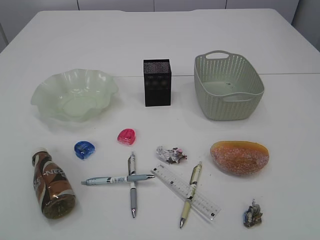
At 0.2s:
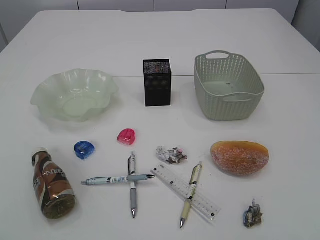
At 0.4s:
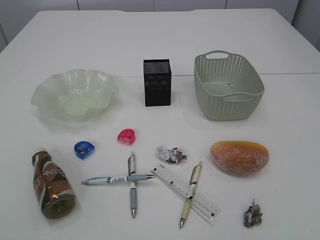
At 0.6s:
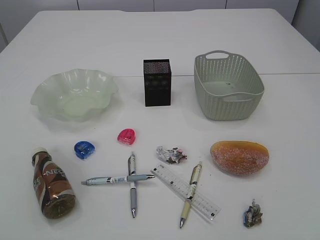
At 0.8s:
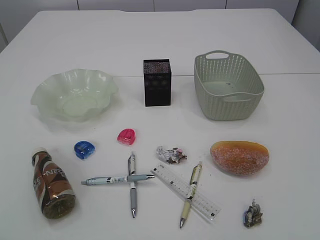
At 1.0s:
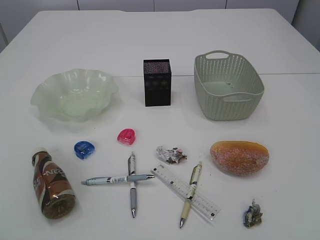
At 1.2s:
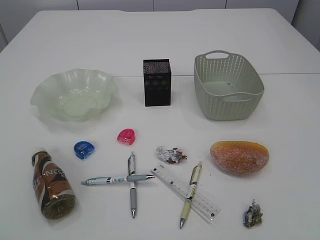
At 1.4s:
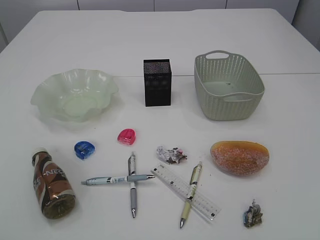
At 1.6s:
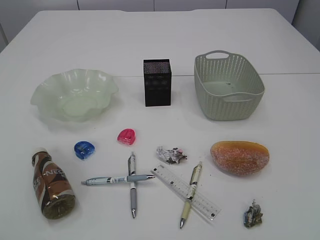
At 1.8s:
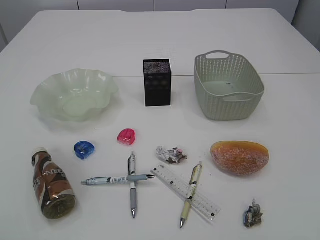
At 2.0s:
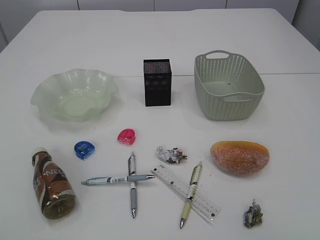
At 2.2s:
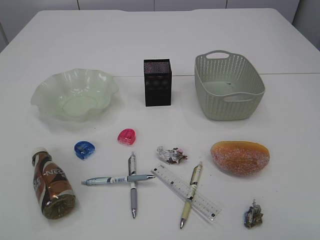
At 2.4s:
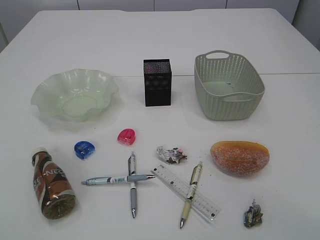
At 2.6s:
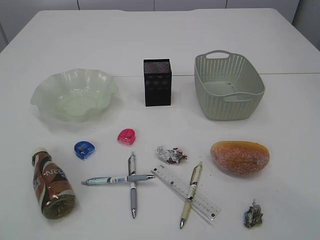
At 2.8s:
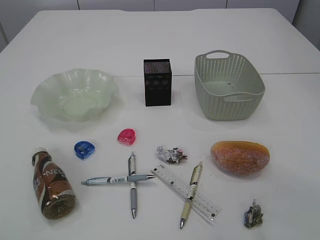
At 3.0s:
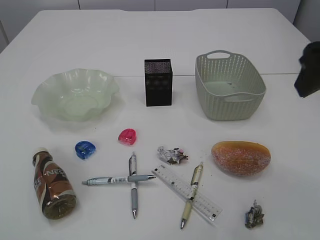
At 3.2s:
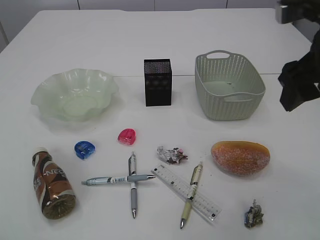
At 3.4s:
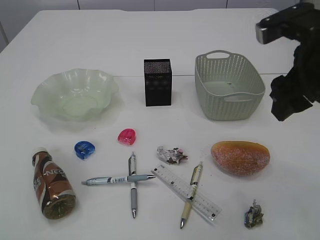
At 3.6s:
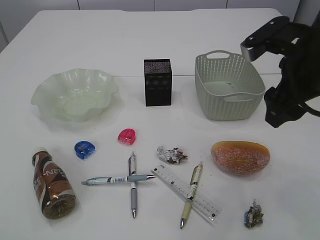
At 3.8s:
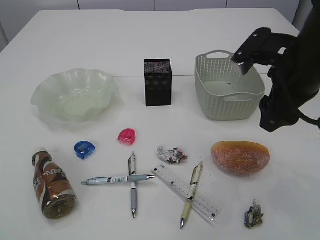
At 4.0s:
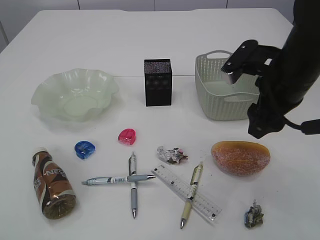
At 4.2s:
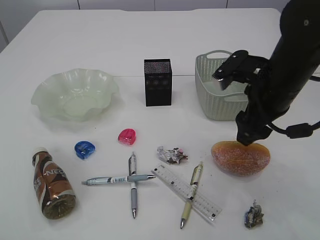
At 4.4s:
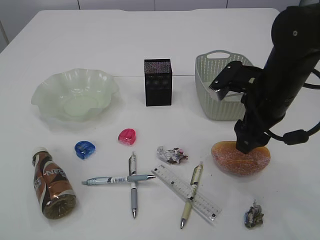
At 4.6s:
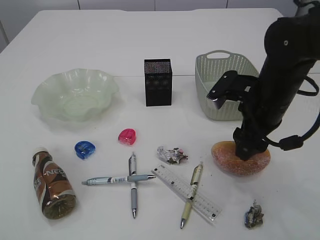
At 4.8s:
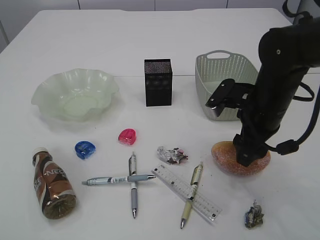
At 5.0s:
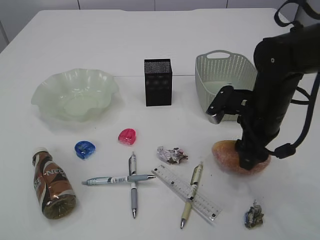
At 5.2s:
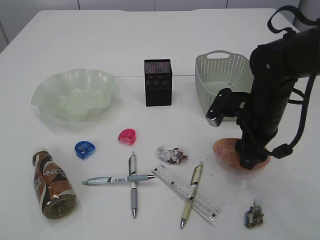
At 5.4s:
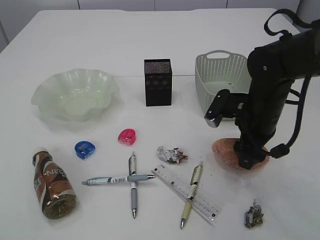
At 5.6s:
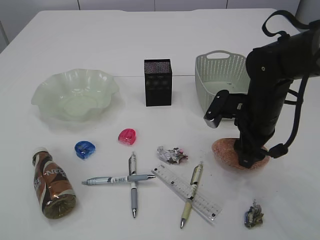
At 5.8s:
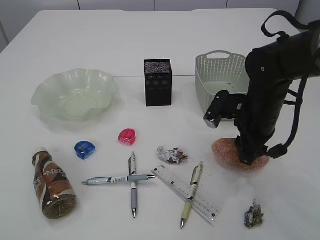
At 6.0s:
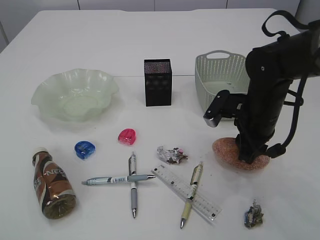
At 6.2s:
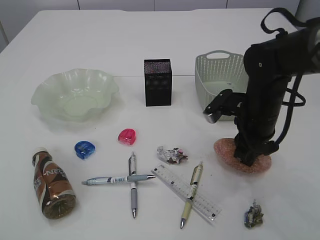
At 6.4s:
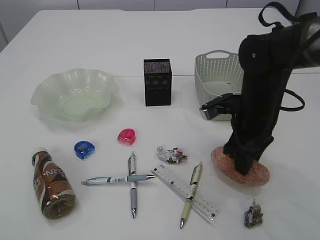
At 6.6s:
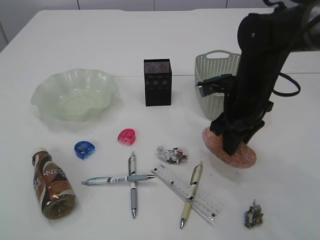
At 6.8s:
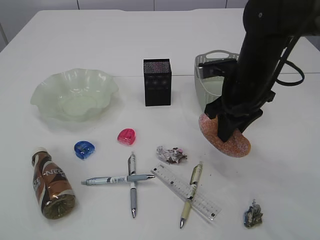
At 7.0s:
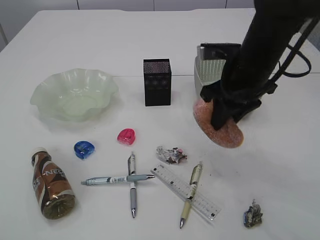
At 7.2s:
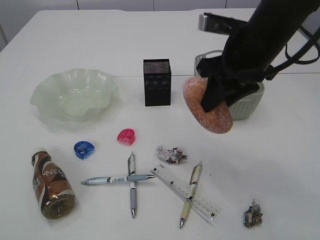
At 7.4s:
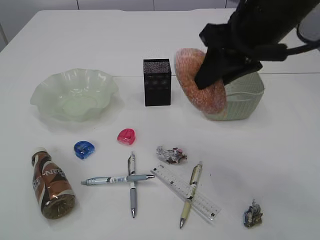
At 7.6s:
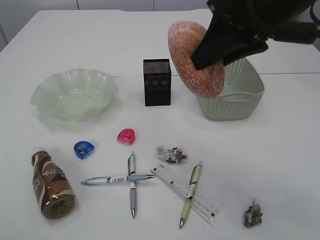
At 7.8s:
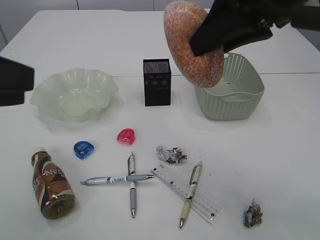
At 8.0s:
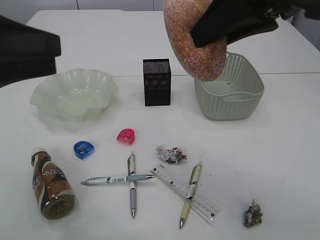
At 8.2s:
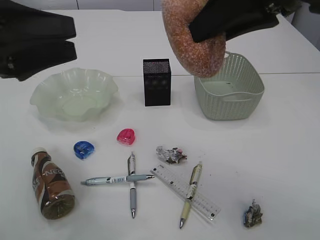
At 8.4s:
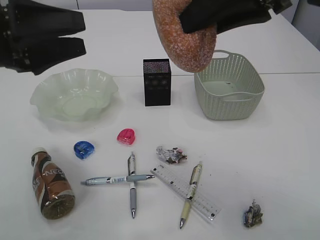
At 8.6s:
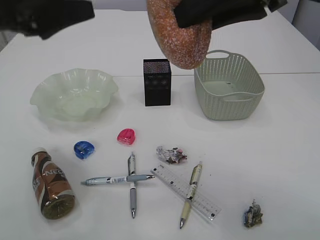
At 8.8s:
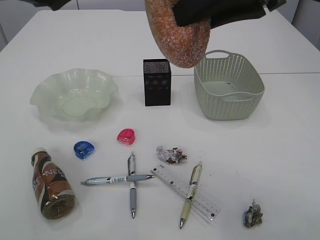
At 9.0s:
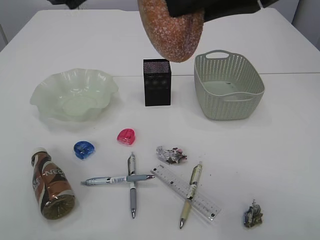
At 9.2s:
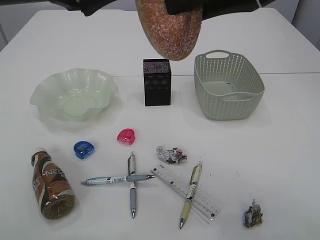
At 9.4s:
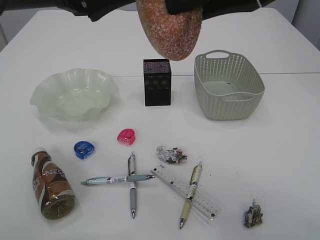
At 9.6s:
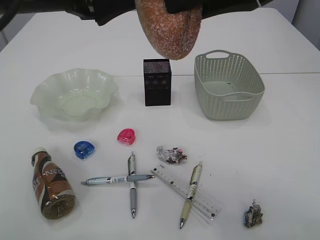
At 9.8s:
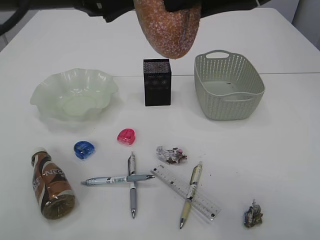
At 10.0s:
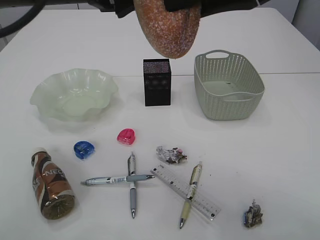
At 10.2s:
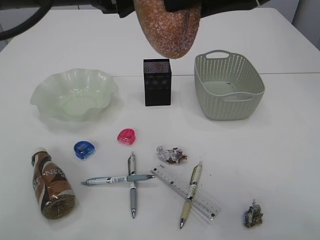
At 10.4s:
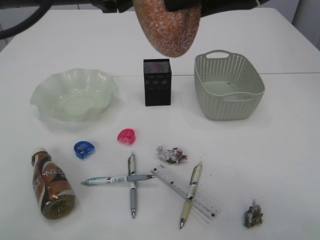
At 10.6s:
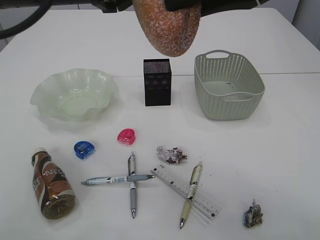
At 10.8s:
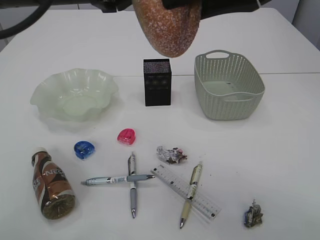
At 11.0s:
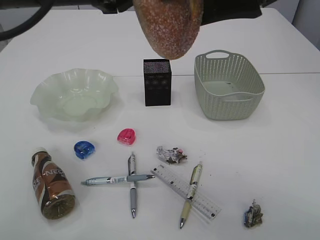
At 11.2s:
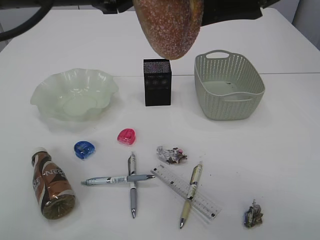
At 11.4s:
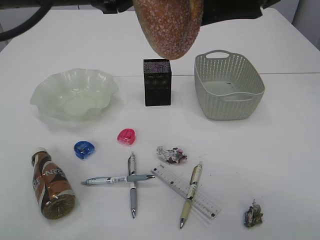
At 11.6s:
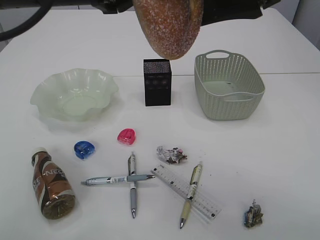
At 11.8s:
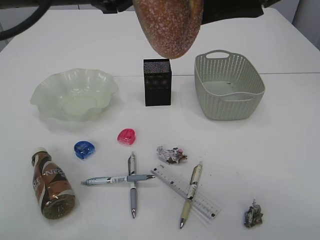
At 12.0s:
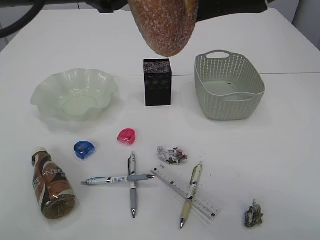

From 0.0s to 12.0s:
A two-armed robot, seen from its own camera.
From 1.6s to 3.0s: The right gripper heads forward, covering about 25 cm. Meanwhile the left gripper changes place by approximately 5 cm.
From 3.0s to 4.4s: The right gripper moves downward and forward, some 15 cm.
From 4.4s to 6.0s: The right gripper travels downward by about 5 cm, and closes its fingers.
From 6.0s to 7.6s: The left gripper heads forward and to the right, covering approximately 10 cm. Meanwhile the right gripper shifts about 20 cm upward.
From 7.6s to 9.0s: The left gripper heads forward and to the right, covering about 20 cm; the right gripper heads upward, covering about 5 cm.
From 9.0s to 10.4s: The left gripper heads to the right, covering roughly 5 cm, and closes up.
From 10.4s to 12.0s: The right gripper opens up.

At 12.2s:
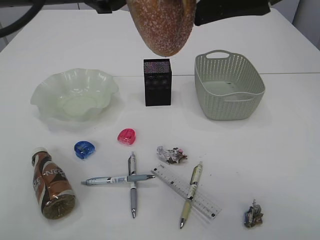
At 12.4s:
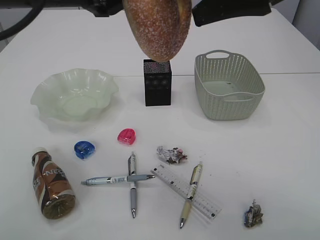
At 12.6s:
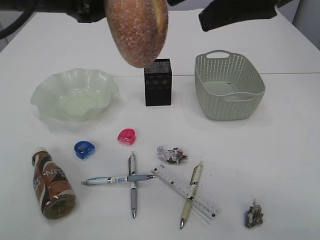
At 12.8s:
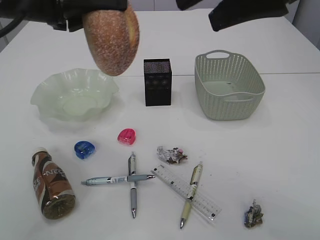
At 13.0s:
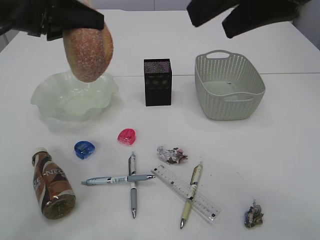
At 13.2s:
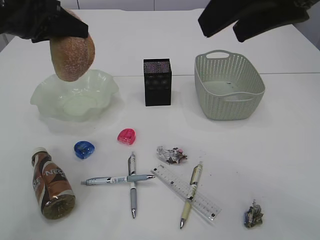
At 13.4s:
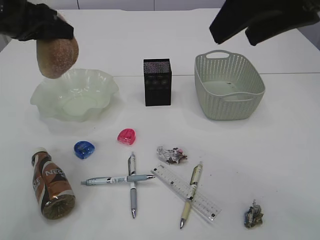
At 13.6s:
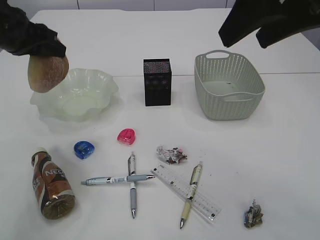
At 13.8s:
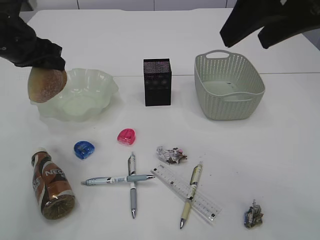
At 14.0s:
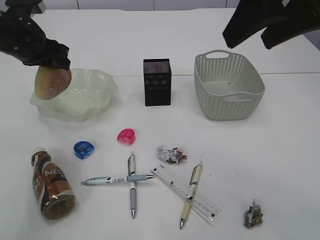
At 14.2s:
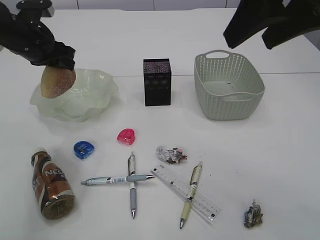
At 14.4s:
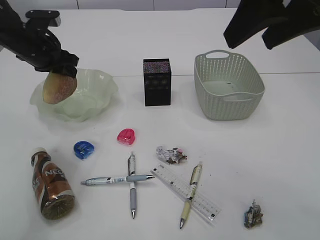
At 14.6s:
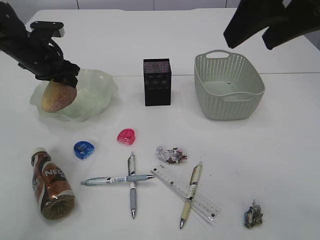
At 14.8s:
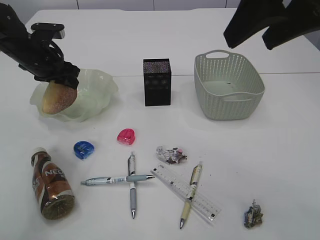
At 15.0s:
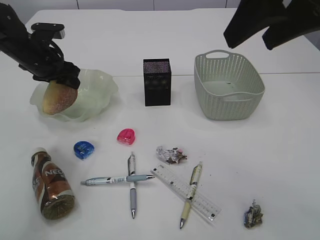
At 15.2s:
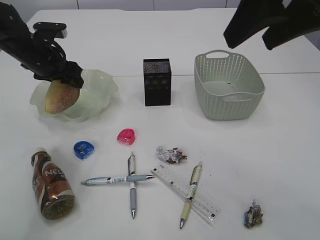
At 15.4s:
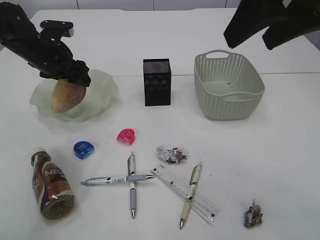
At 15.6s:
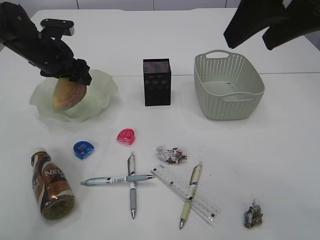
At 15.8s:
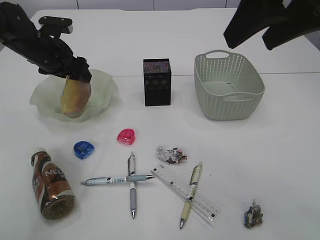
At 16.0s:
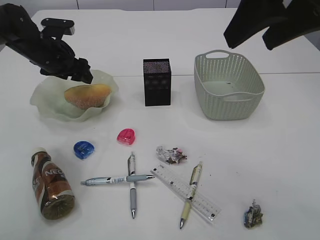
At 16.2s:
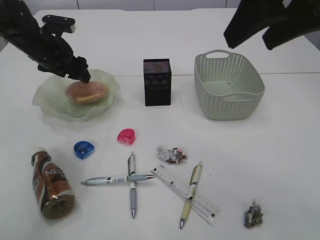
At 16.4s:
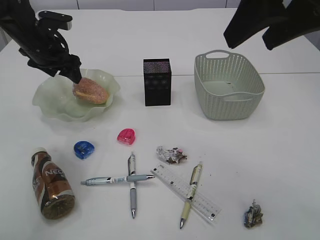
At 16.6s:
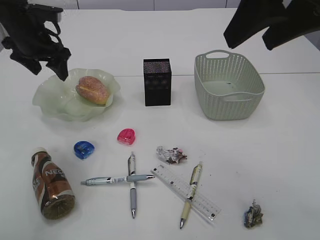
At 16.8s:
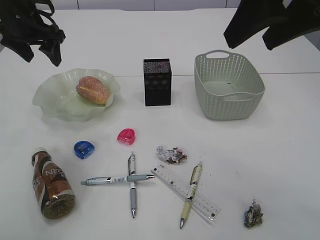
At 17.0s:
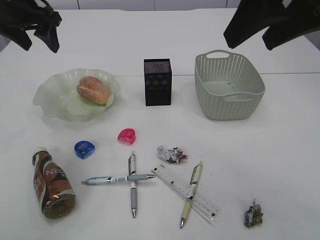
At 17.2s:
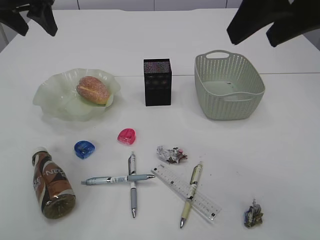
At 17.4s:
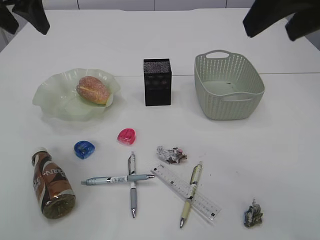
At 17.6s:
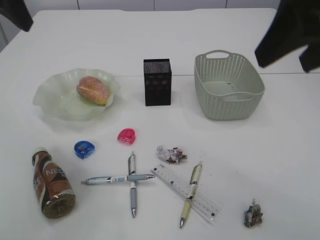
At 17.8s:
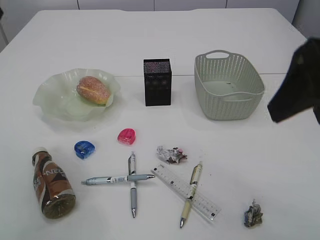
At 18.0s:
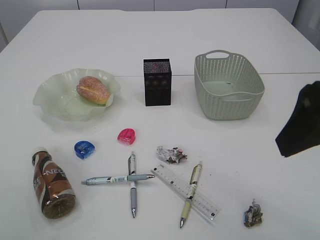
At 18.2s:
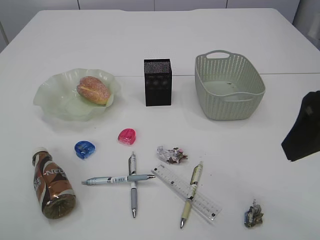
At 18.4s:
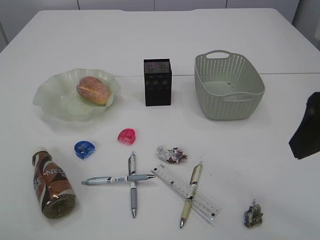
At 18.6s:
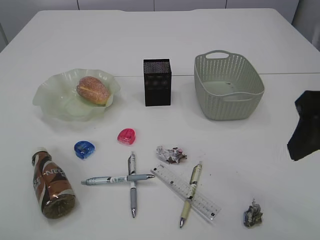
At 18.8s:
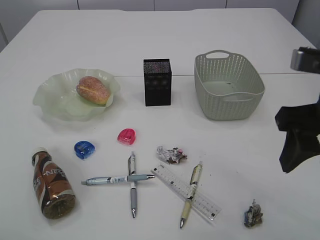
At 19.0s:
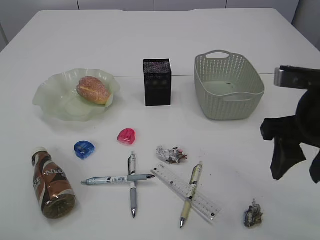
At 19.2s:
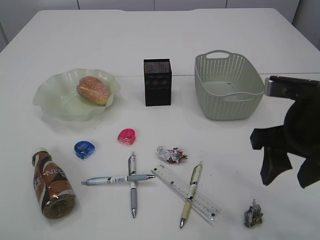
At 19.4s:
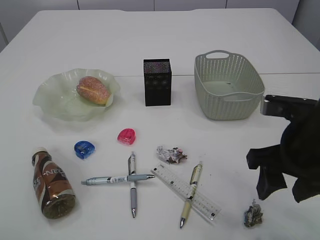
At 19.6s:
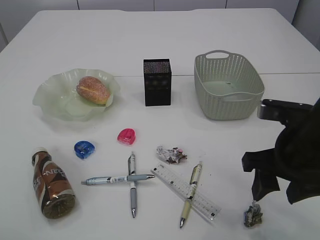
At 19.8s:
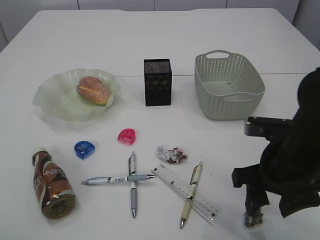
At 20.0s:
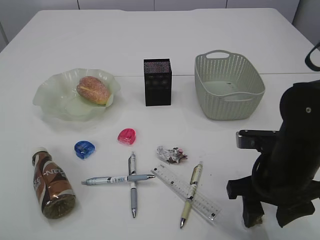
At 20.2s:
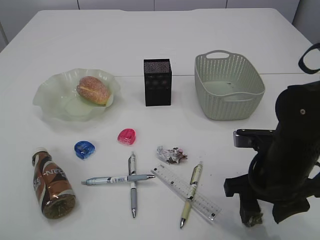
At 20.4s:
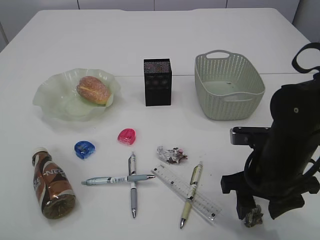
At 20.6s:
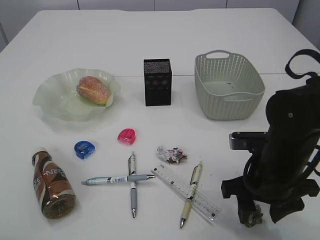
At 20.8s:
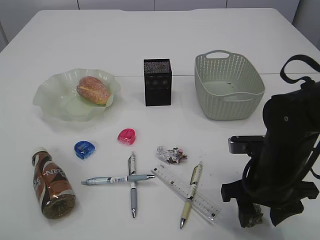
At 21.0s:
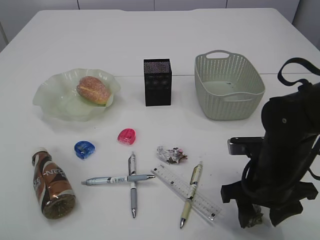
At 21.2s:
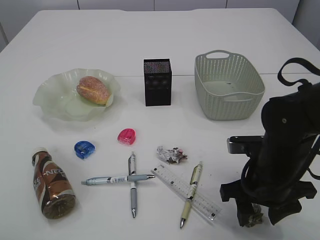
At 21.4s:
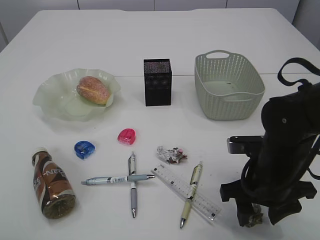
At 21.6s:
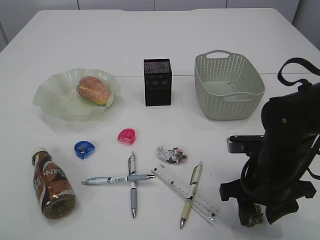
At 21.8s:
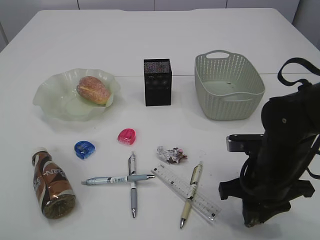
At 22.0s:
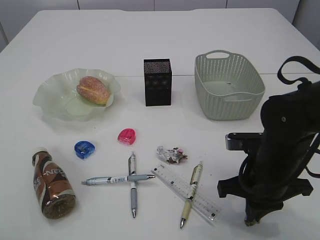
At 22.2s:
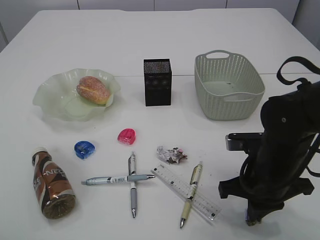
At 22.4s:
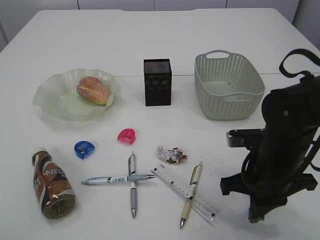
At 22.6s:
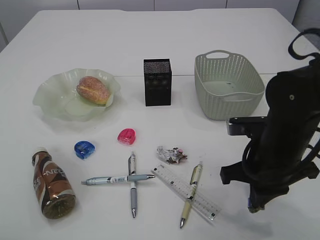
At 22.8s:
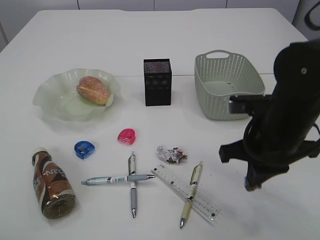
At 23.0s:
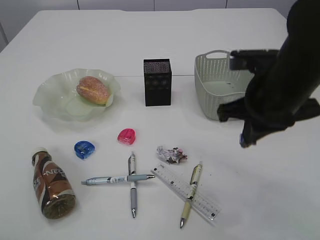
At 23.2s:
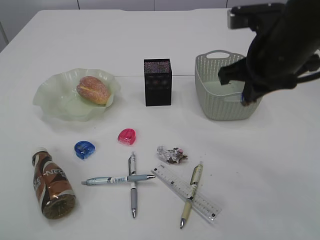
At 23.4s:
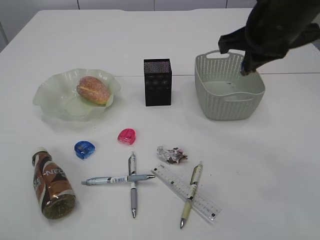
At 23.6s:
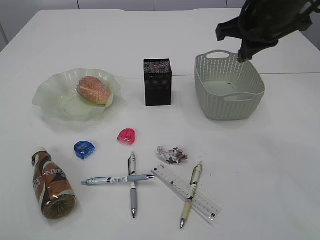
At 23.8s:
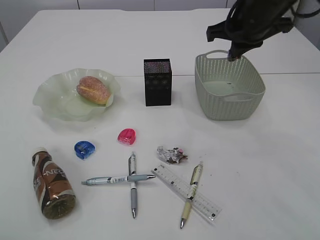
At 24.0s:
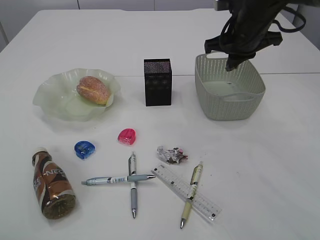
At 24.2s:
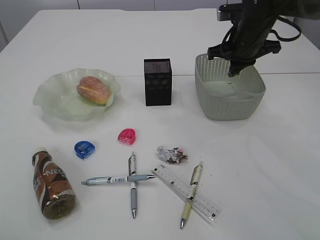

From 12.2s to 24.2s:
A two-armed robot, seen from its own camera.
Step, from 13.0s to 16.6s: place the bread in the plate.
Step, from 16.8s to 22.8s: Pick up the waste paper.
From 12.2s to 13.8s: The left gripper shifts about 20 cm to the left, downward and forward.
From 13.8s to 15.2s: The left gripper heads forward and downward, covering about 10 cm, and opens up.
From 15.2s to 16.6s: The left gripper heads upward, covering some 5 cm.
From 16.6s to 18.2s: The right gripper heads backward and downward, covering some 10 cm, while the left gripper travels backward and upward by about 35 cm.
From 18.2s to 19.8s: The right gripper goes some 15 cm downward.
From 19.8s to 21.2s: The right gripper is displaced downward by approximately 5 cm.
From 21.2s to 22.6s: The right gripper closes.
From 22.6s to 24.2s: The right gripper shifts some 25 cm forward and upward.
